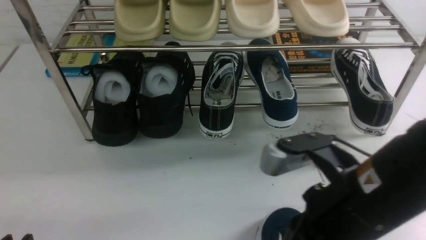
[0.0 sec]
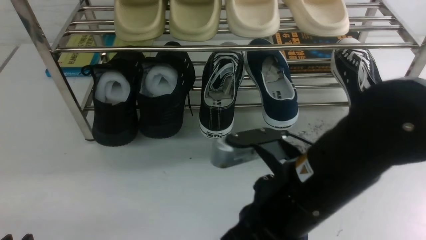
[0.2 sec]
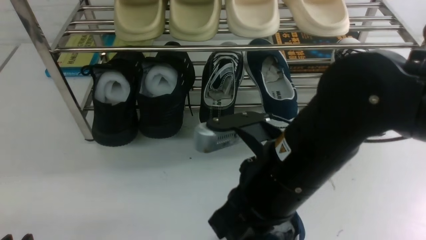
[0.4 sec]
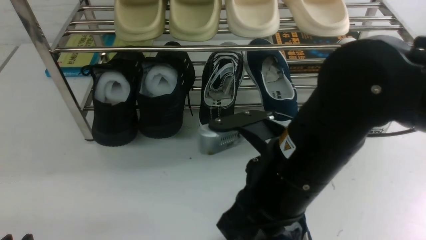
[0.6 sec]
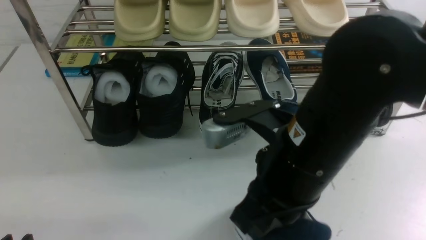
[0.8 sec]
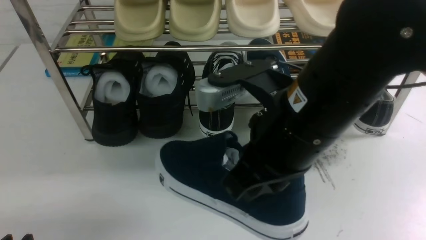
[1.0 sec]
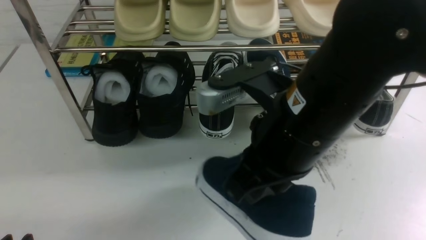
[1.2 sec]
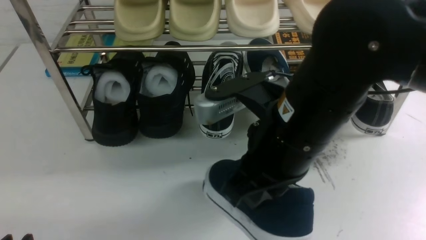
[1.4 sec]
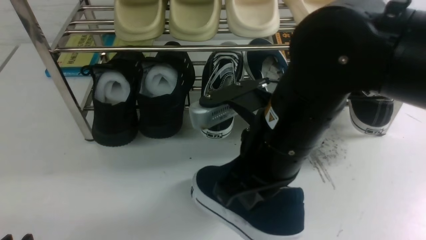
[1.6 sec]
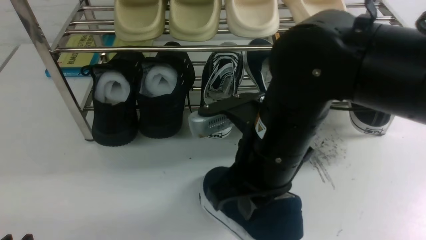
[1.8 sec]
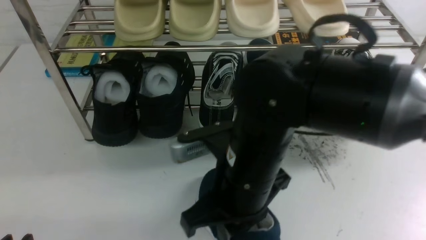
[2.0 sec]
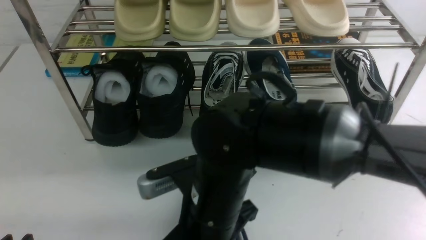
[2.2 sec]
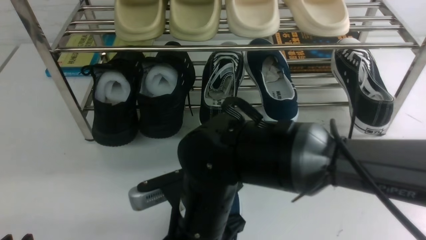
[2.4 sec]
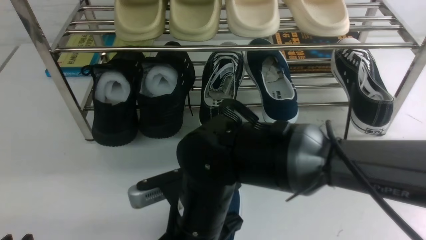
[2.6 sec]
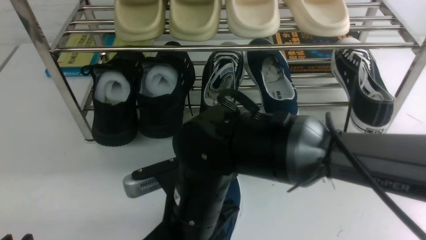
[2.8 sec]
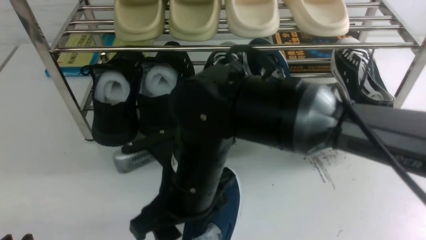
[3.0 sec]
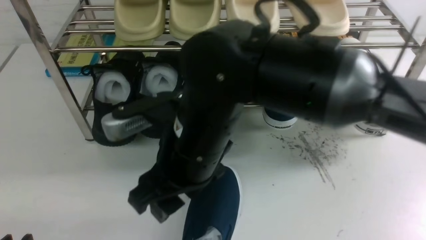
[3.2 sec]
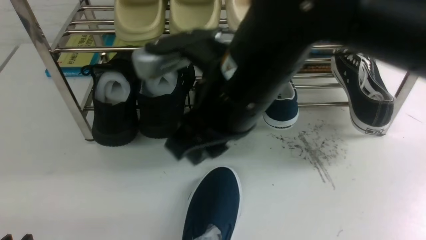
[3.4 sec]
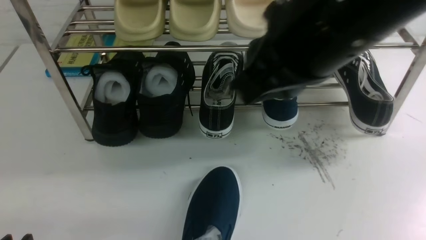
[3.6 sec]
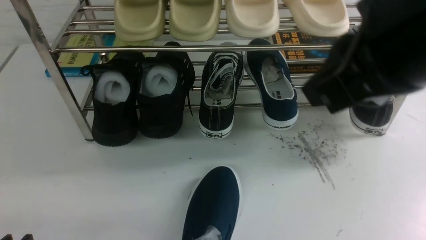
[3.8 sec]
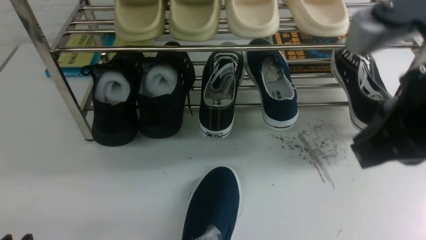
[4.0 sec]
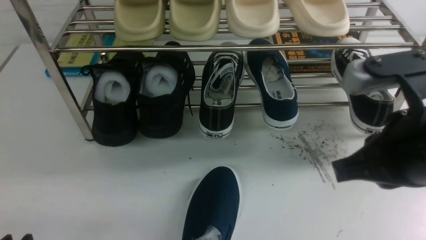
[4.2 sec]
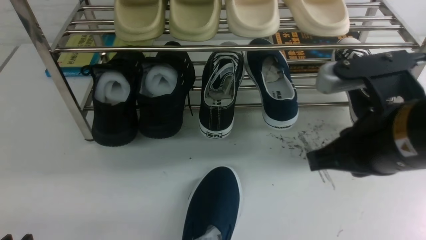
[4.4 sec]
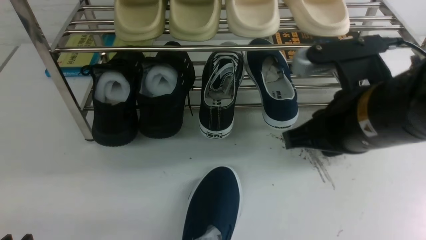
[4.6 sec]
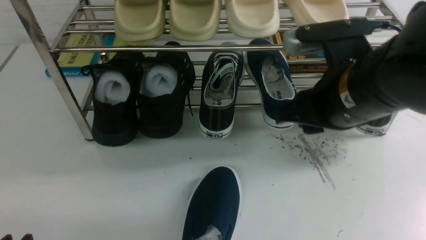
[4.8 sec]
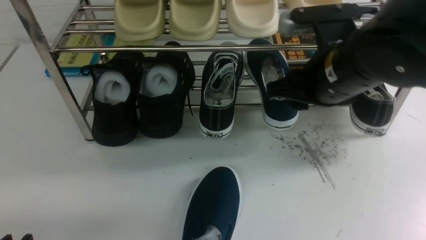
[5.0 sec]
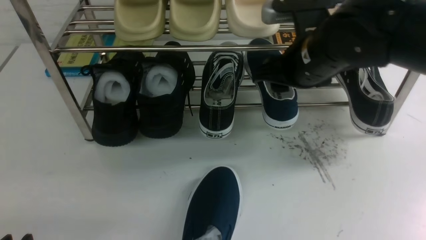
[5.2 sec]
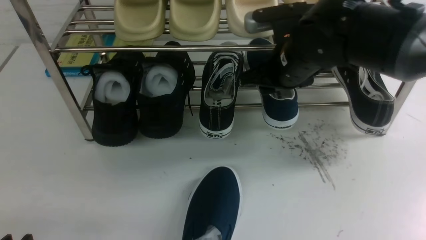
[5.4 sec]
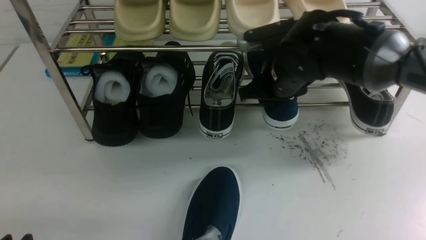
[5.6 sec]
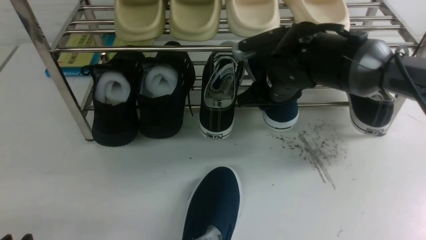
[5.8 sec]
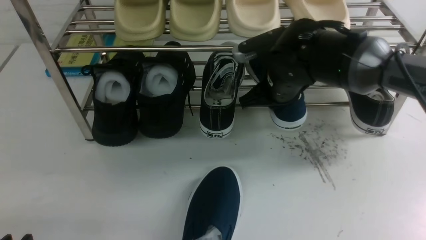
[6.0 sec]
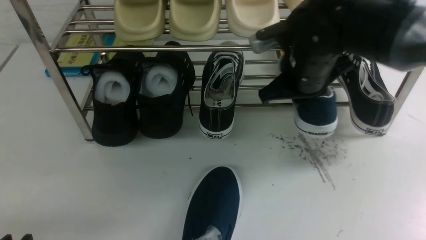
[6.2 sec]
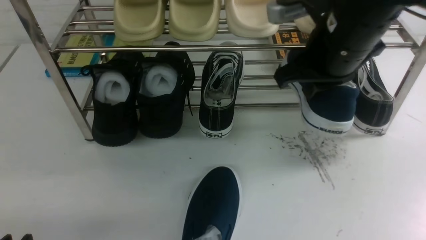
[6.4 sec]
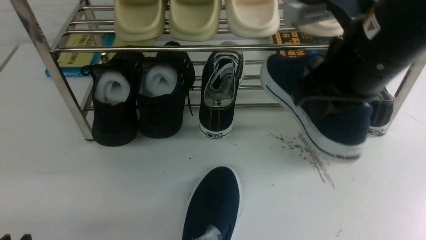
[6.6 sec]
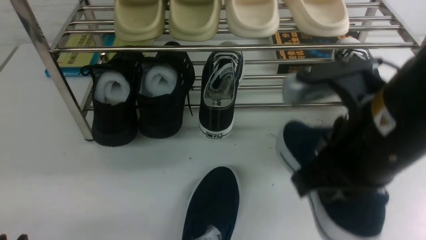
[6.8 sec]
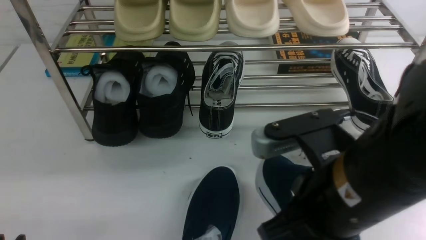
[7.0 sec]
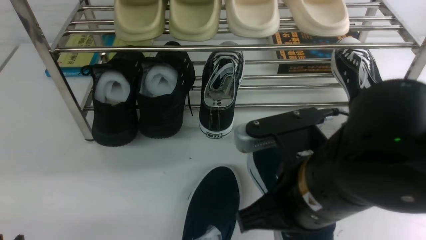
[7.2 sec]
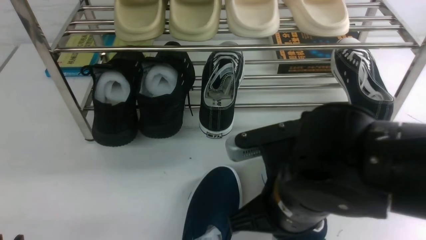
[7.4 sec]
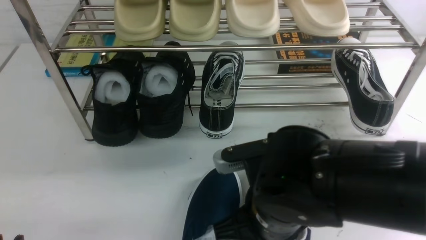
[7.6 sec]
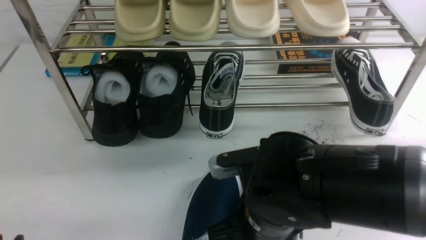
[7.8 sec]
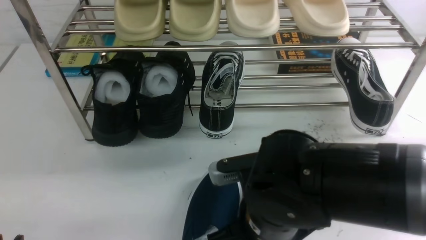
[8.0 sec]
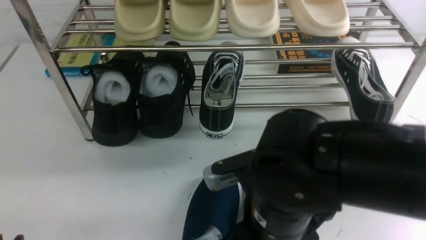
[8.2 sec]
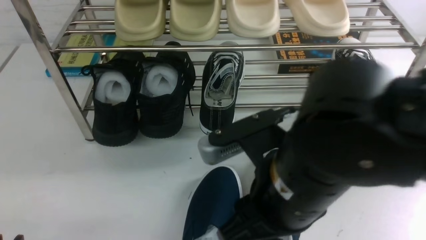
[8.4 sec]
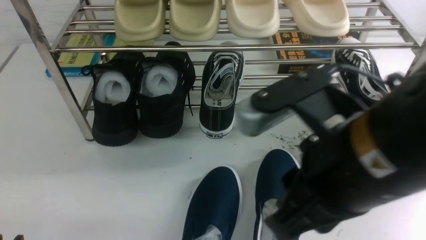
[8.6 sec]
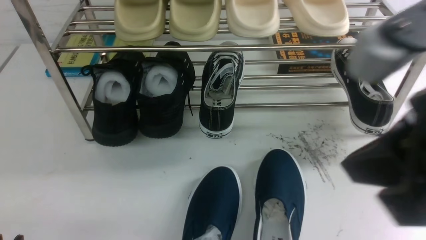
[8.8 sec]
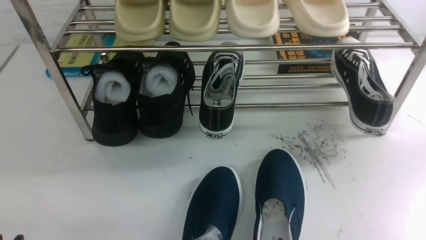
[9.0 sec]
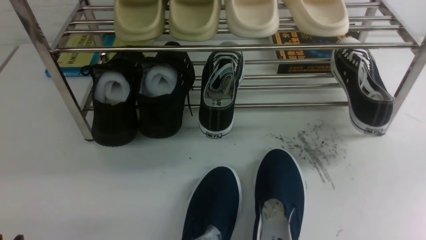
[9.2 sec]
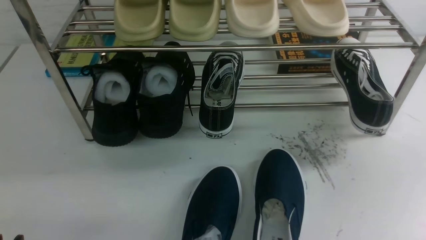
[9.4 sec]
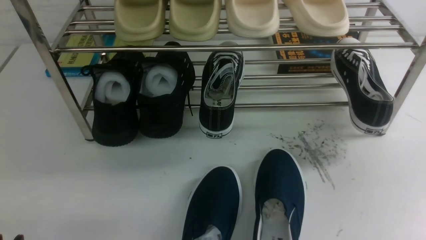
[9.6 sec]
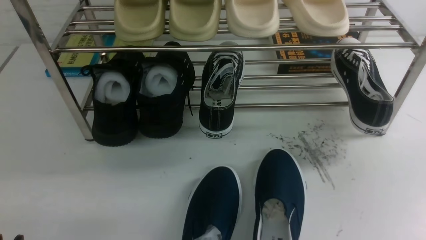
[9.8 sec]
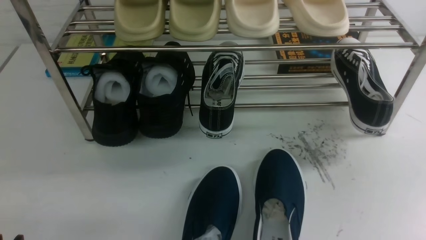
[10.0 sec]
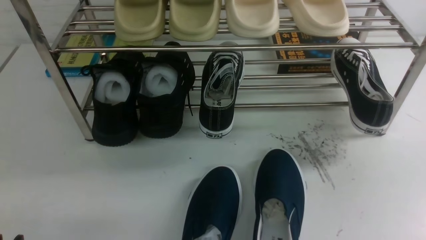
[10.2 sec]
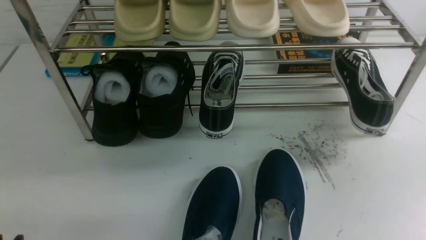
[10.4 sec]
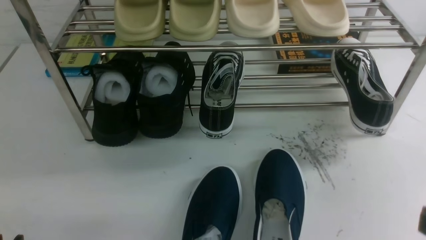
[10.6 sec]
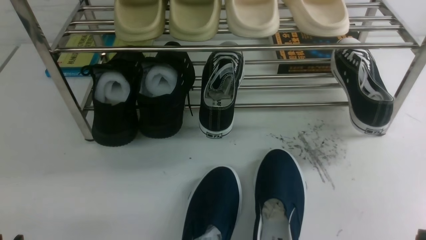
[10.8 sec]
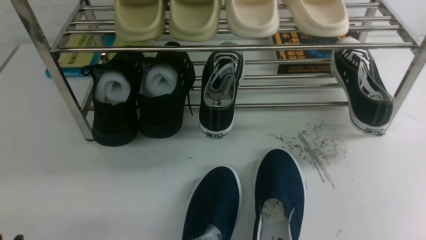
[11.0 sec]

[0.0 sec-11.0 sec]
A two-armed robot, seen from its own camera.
Step, 0.0 sec to 3.2 sec: use the right arm to take out the clamped shoe from the shoe rack and put it down.
Step, 3.4 sec to 6.2 sec: use the right arm to clamp a shoe in the middle of the shoe rack.
Step, 6.4 sec to 8.4 sec: use the right arm to take out the clamped shoe from the shoe rack and put it down.
0.0 sec to 1.6 sec: The right gripper is displaced to the left and forward by about 10 cm.
1.6 sec to 3.2 sec: The right gripper heads to the left, covering roughly 5 cm, goes downward and returns, some 10 cm each way, and opens.
3.2 sec to 4.8 sec: The right gripper goes approximately 15 cm to the right, and closes, then reopens.
4.8 sec to 6.2 sec: The right gripper goes approximately 10 cm forward, and closes its fingers.
6.2 sec to 7.8 sec: The right gripper is displaced backward, downward and to the left by about 20 cm.
7.8 sec to 9.4 sec: The right gripper travels to the right, upward and backward by about 30 cm, and closes its fingers.

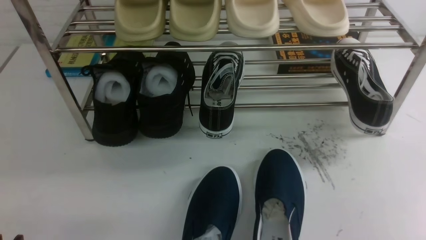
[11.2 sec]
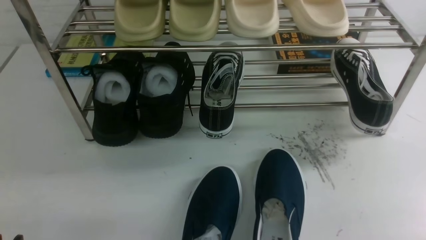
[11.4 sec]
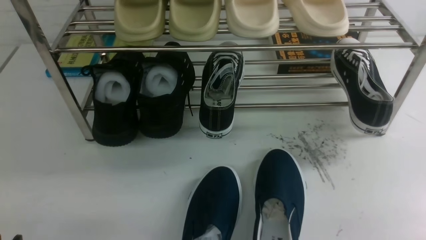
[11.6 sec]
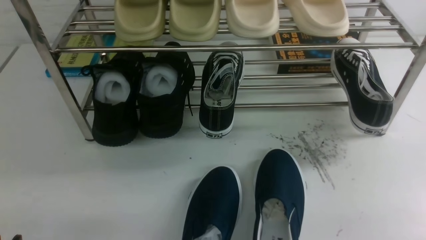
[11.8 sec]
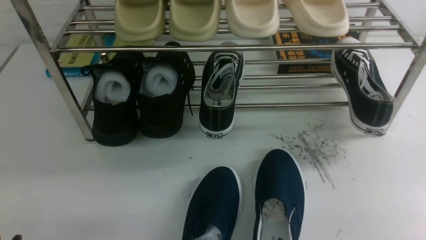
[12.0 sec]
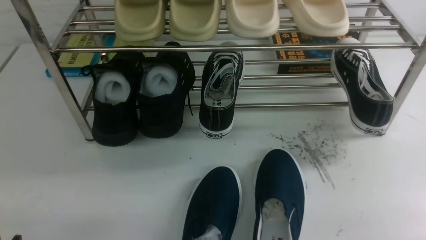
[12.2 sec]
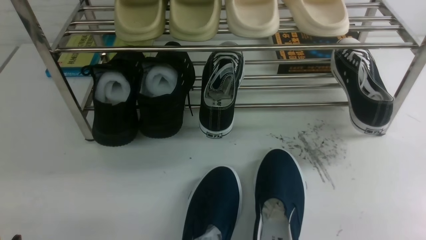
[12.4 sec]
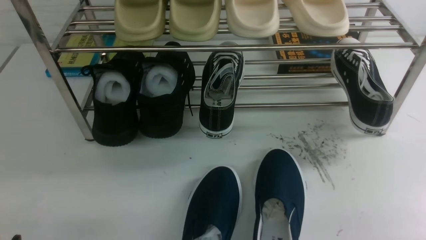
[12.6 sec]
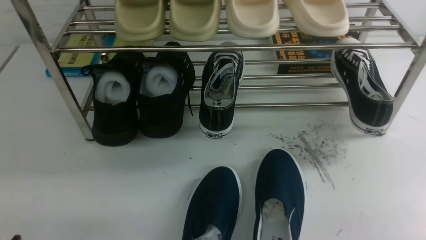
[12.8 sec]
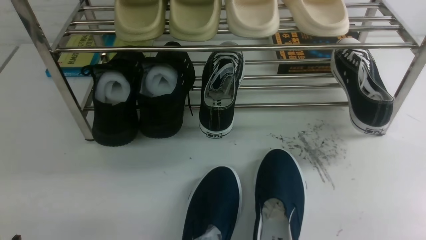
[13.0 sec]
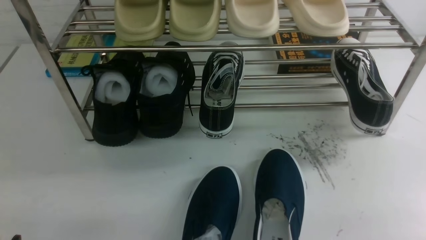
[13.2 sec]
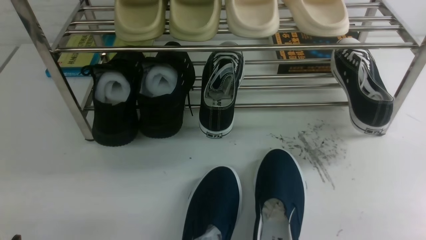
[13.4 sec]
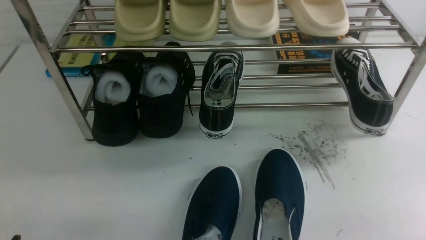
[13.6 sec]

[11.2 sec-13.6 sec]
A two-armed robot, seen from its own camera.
12.4 sec to 13.6 sec: Both grippers stay put.
